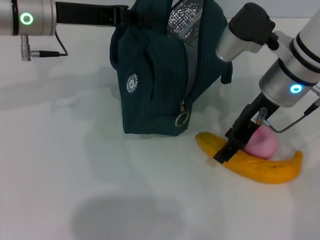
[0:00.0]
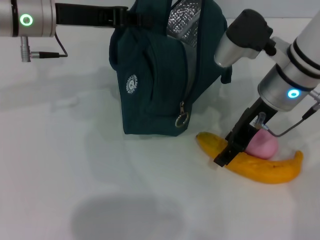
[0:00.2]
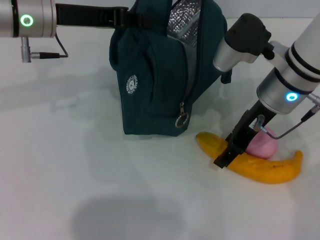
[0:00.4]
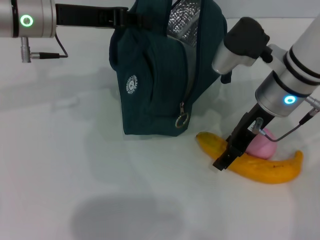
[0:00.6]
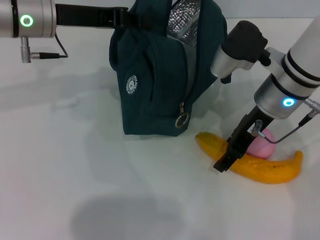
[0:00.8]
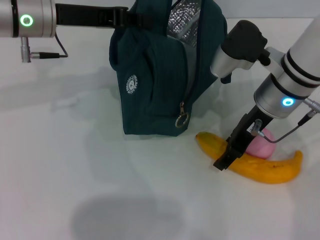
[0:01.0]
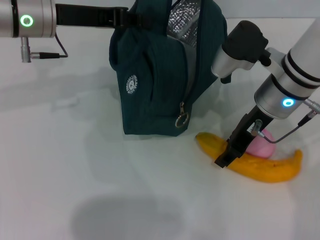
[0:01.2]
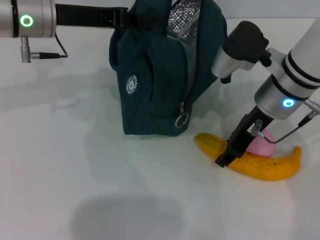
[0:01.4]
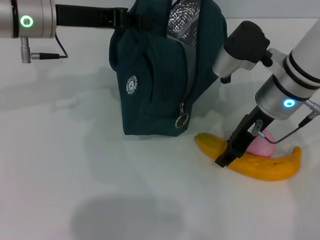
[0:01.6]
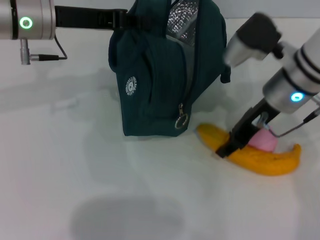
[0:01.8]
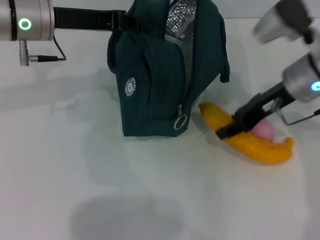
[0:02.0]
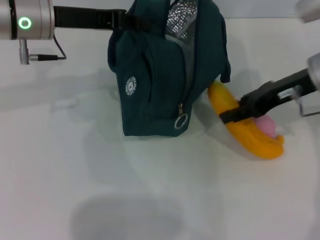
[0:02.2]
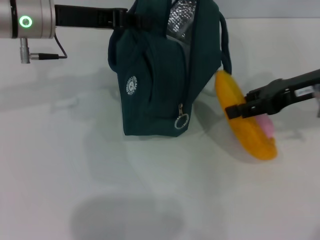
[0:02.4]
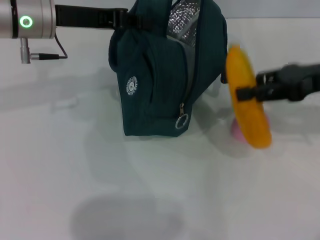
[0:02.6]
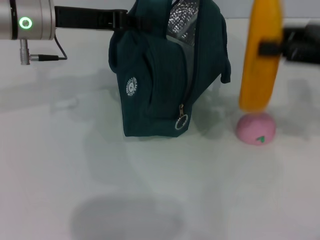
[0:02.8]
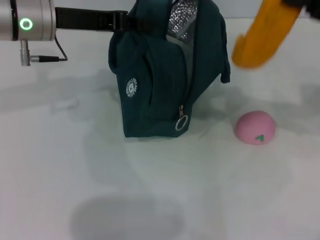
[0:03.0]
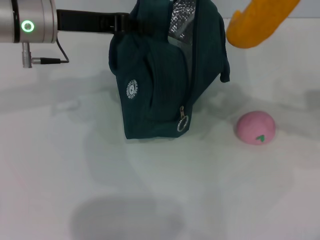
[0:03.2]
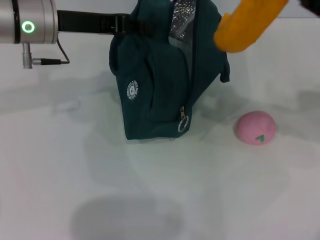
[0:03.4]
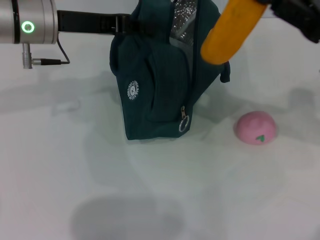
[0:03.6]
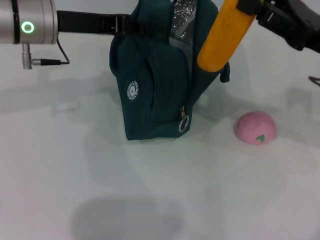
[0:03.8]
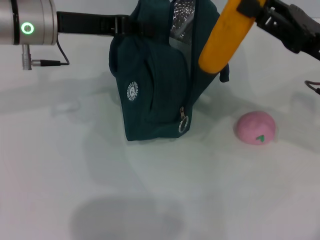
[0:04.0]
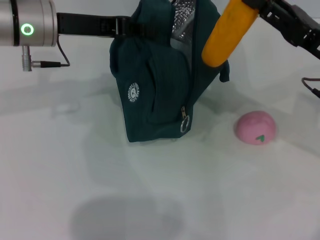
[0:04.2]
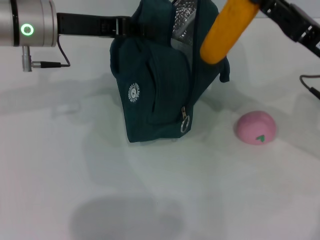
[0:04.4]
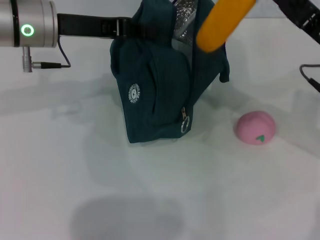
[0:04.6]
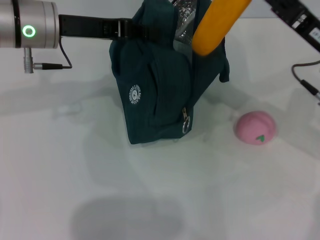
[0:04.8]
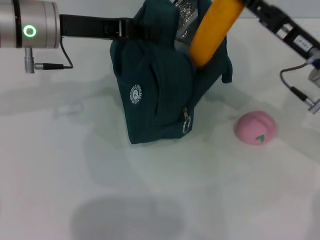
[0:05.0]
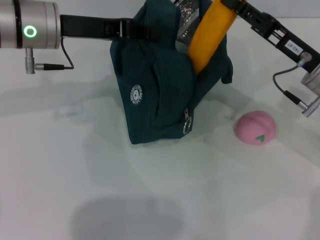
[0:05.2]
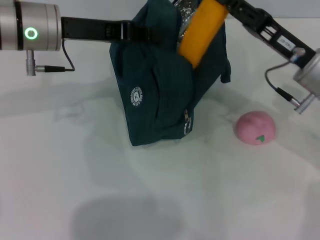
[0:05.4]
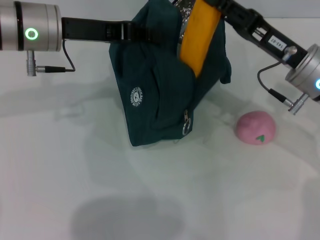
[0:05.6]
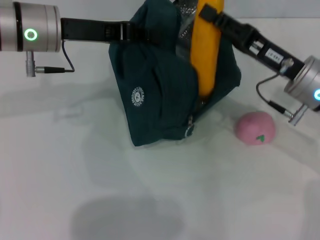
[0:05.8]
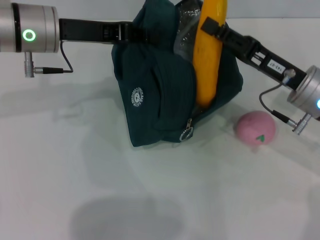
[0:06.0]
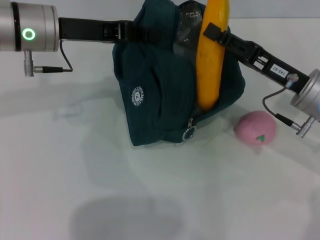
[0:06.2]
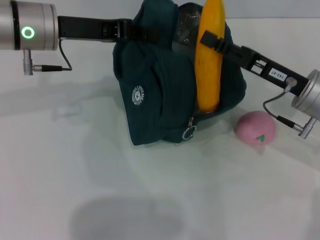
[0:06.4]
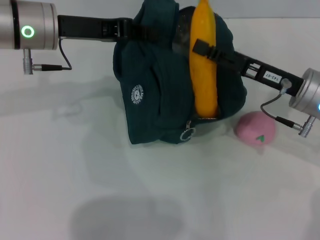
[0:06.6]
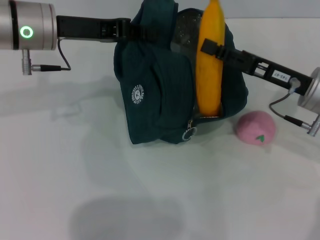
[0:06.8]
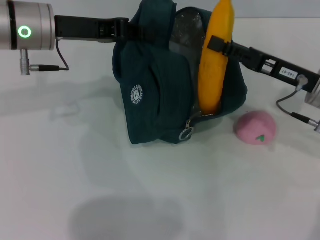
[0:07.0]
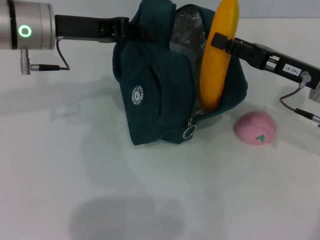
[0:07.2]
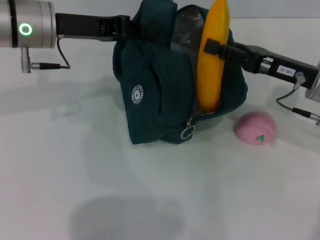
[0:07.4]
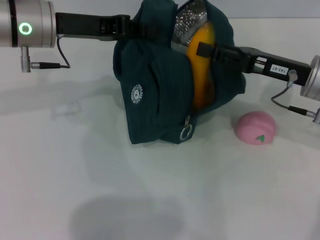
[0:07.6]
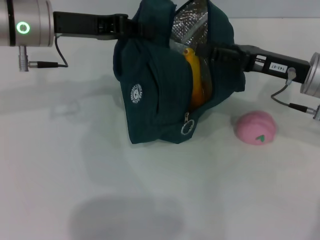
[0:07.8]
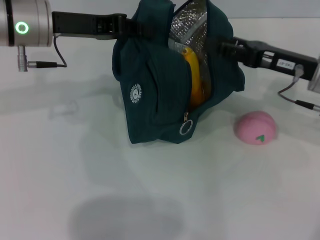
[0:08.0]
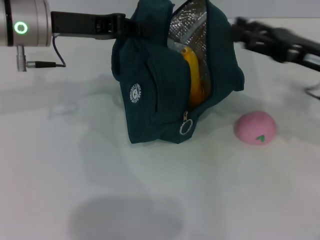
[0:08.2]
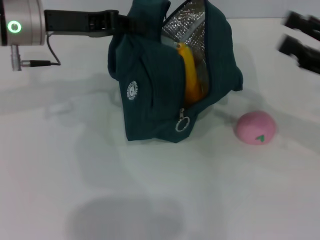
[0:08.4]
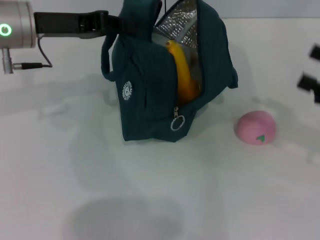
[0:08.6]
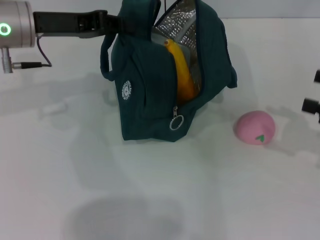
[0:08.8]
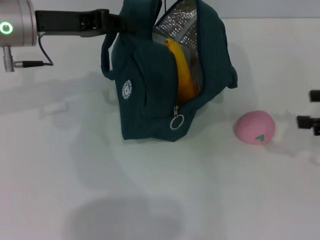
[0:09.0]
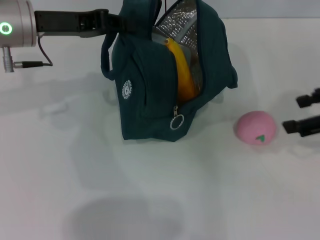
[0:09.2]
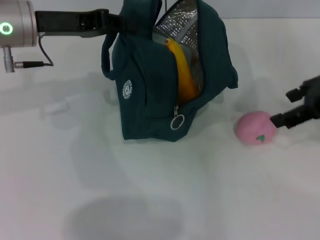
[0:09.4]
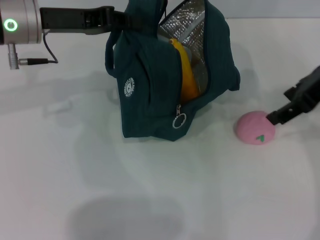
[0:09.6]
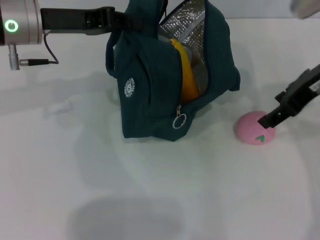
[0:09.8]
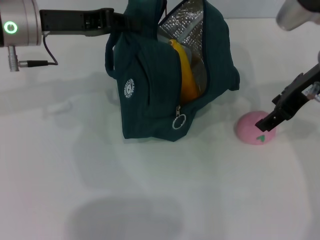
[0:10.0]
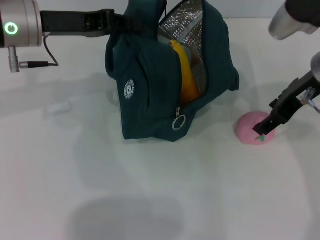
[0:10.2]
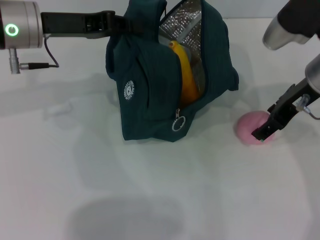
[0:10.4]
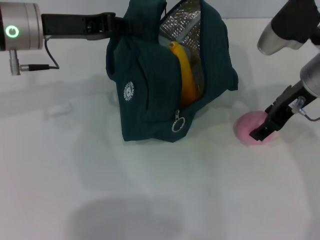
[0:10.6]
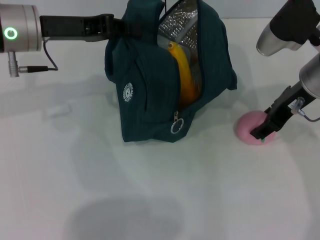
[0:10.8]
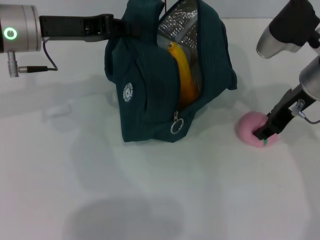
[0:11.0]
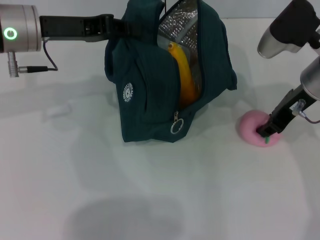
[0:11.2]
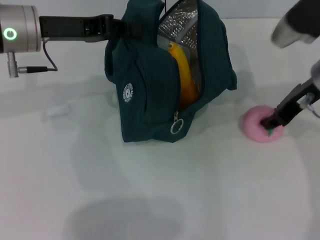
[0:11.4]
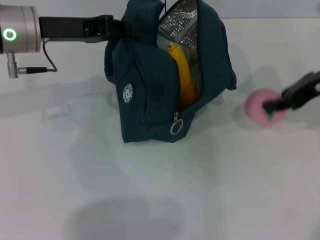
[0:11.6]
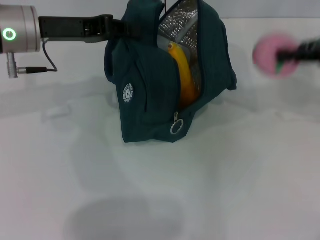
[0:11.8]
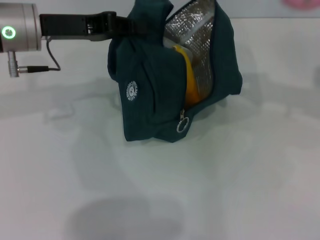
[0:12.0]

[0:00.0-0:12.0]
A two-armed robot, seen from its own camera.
Step, 0:01.8 to 0:07.8: Put the banana into the lunch bag with your right hand.
Step, 0:08.0 to 0:11.2: Grab the peach with your right hand.
0:00.0 to 0:01.6: The grippers move only a little.
0:01.6 to 0:03.0: The right gripper shifts some 15 cm to the right and upward.
0:03.0 to 0:04.4: The right gripper moves downward, approximately 5 cm.
0:04.4 to 0:06.0: The right gripper moves about 5 cm.
0:06.0 to 0:07.6: There are only small adjustments of the grippers.
0:07.6 to 0:09.0: The right gripper heads to the right and backward, covering approximately 15 cm, and opens.
0:09.0 to 0:10.4: The right gripper moves to the left and forward, about 15 cm.
0:10.4 to 0:12.0: The right gripper shifts approximately 15 cm to the right and upward, and closes its fingers.

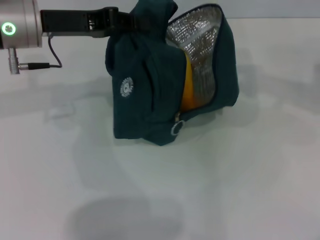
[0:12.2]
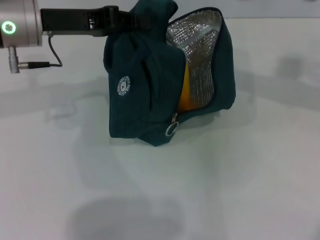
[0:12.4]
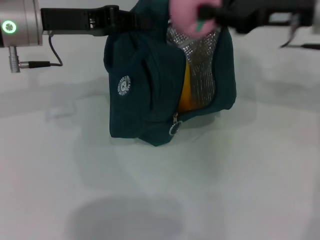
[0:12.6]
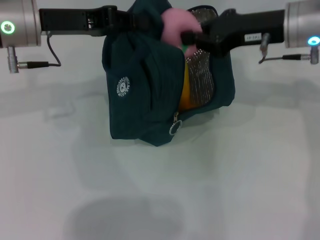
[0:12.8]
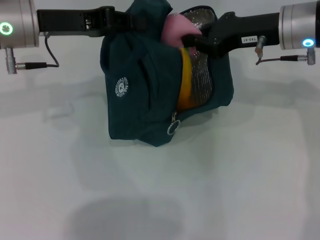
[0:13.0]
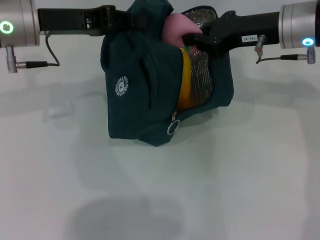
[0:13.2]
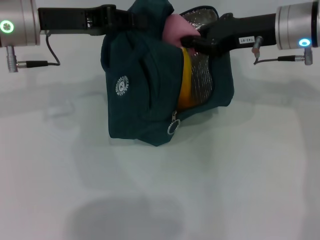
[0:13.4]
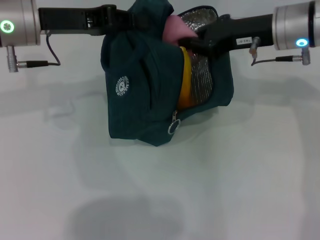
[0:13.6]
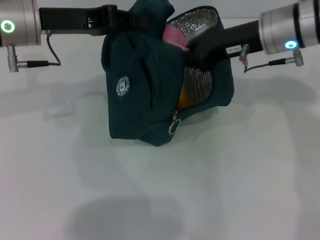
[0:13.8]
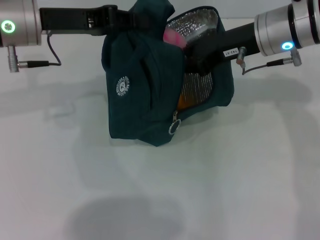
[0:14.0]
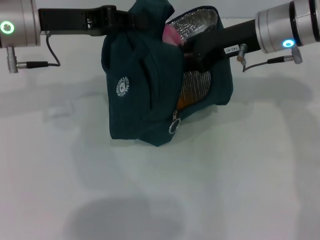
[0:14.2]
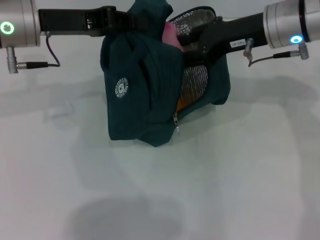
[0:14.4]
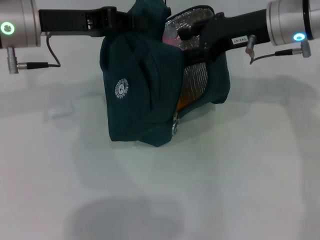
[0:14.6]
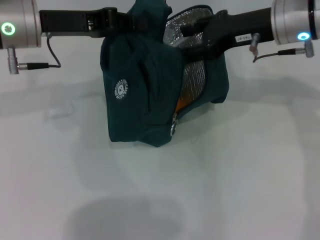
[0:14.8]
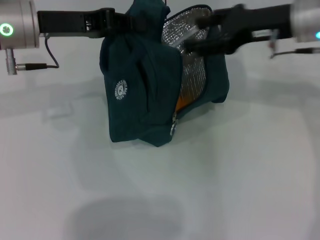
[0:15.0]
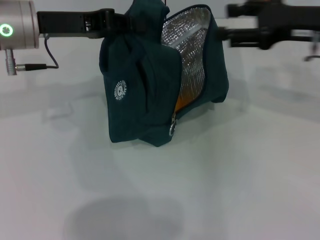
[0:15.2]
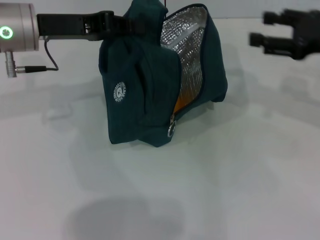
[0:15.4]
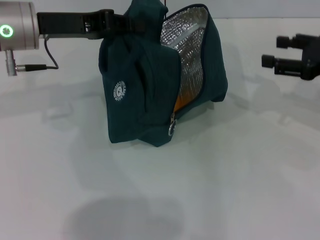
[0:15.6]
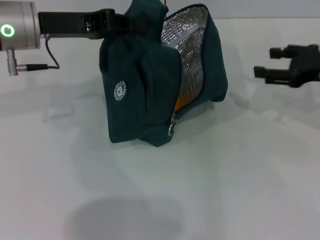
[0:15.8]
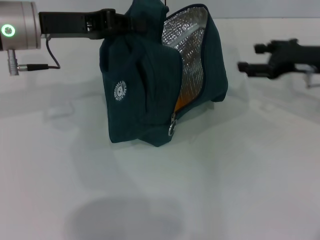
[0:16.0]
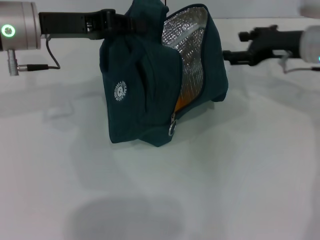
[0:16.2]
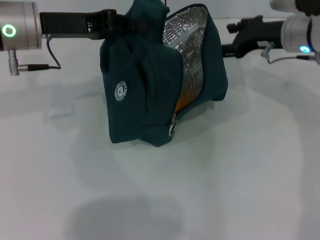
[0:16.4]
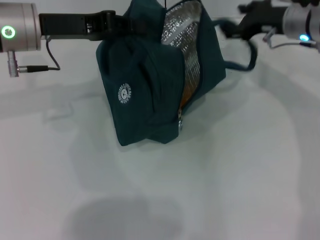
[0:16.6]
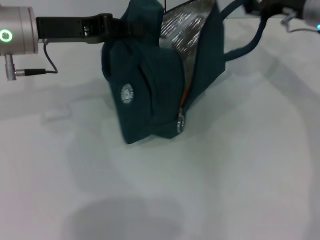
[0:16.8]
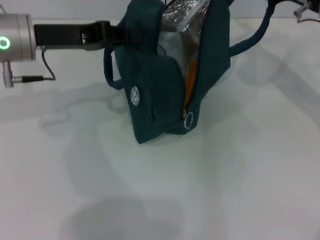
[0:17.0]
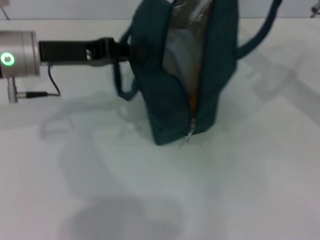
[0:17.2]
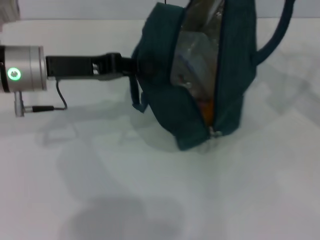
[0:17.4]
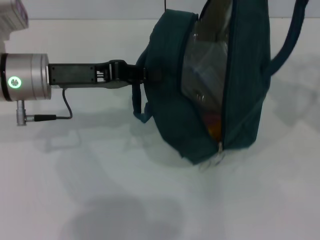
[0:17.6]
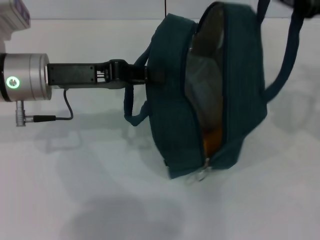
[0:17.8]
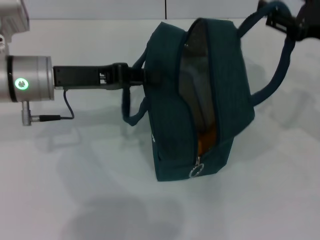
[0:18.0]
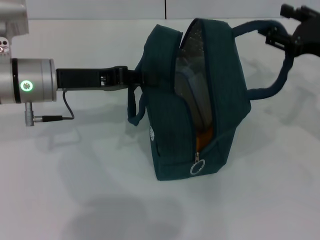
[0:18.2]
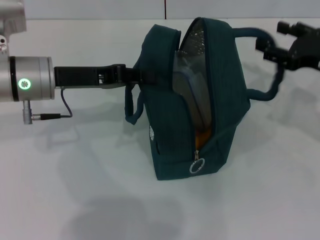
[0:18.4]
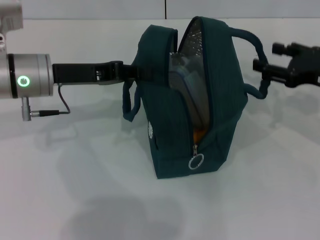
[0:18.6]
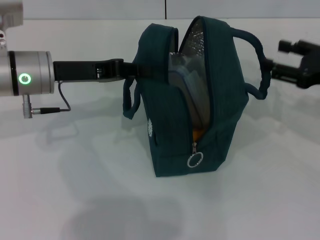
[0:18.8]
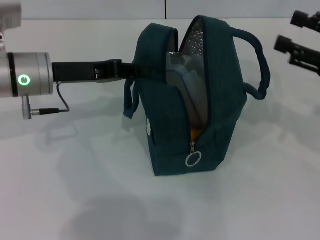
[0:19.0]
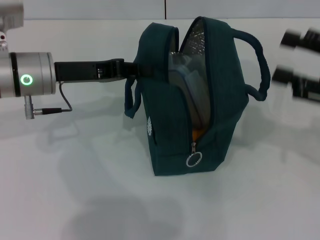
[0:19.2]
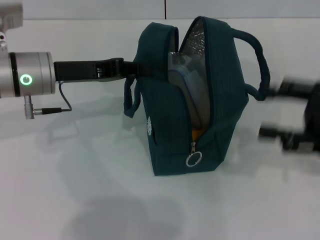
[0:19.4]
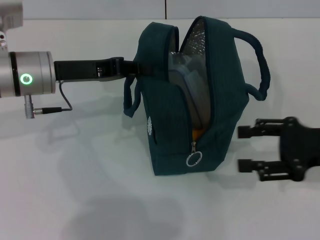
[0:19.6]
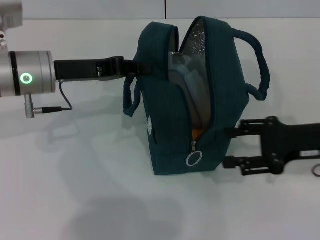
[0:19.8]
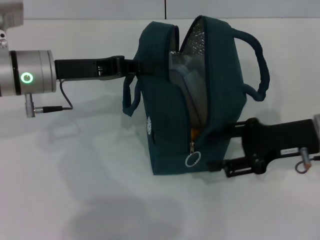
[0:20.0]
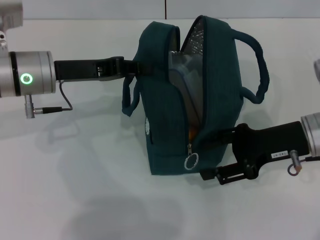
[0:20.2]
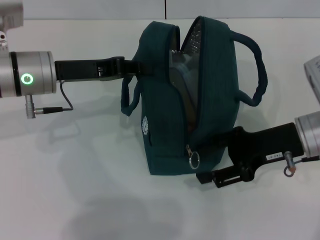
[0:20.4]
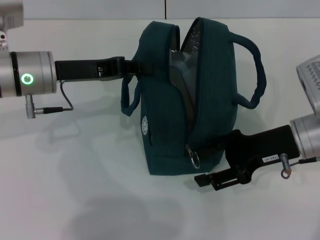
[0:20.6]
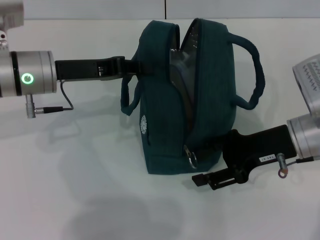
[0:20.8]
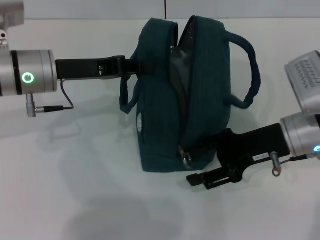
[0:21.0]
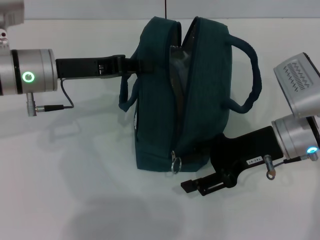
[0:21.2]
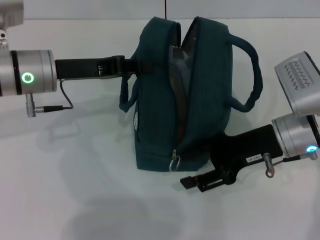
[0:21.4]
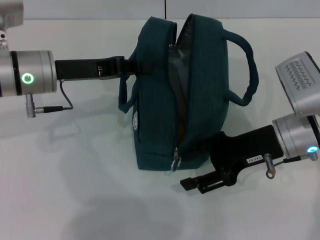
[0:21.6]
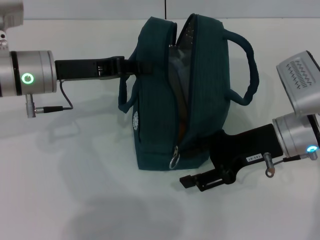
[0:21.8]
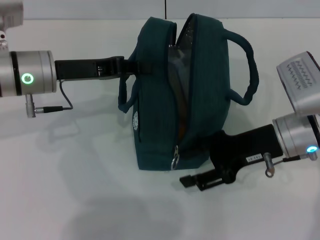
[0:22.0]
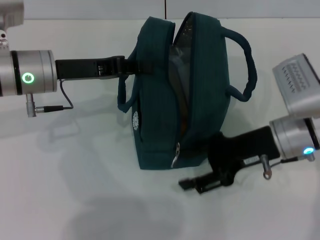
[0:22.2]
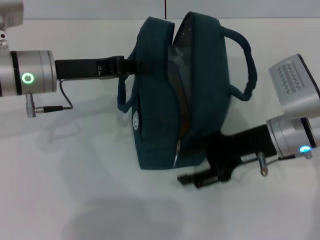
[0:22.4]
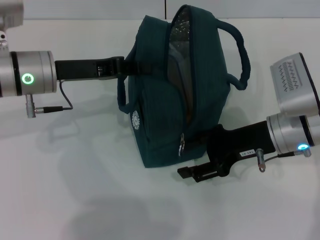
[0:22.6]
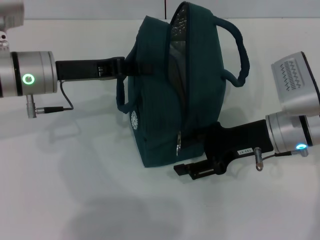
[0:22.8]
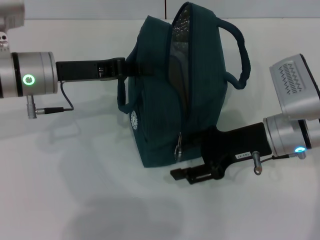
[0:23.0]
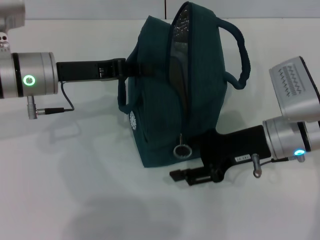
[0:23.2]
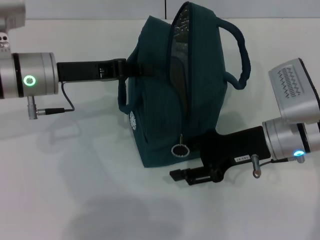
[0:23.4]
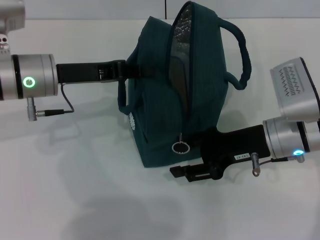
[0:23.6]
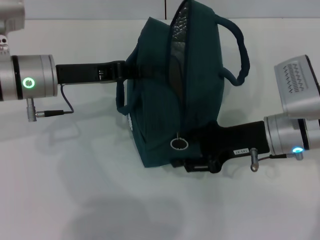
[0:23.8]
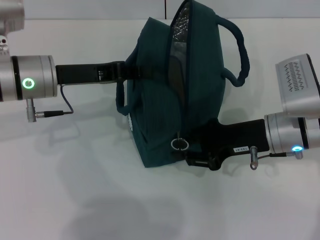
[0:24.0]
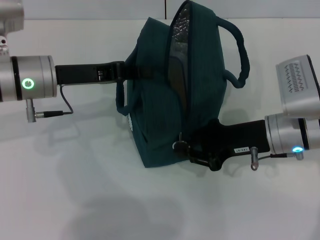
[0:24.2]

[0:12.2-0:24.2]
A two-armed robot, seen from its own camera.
Step, 0:14.8 to 0:18.4: Hold the lunch bag with your right hand.
0:12.2 to 0:13.8: The right gripper goes roughly 15 cm to the left.
0:13.8 to 0:15.2: The right gripper moves to the right, about 10 cm, and opens its fingers.
0:15.2 to 0:16.6: The right gripper heads forward and downward, covering some 10 cm, and moves approximately 5 cm to the right and comes back.
0:16.6 to 0:18.2: The right gripper heads backward and to the right, covering roughly 15 cm. The left gripper moves downward, roughly 5 cm.
0:18.2 to 0:19.8: The right gripper shifts by approximately 5 cm.
0:19.8 to 0:21.2: The right gripper travels to the left by about 10 cm.
0:21.2 to 0:22.6: The grippers move only a little.
0:22.6 to 0:24.2: The right gripper closes up.
